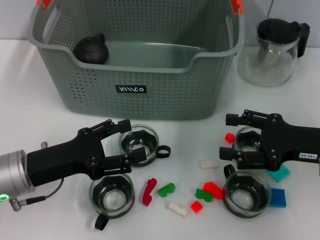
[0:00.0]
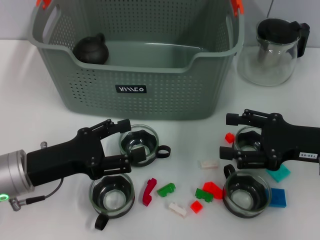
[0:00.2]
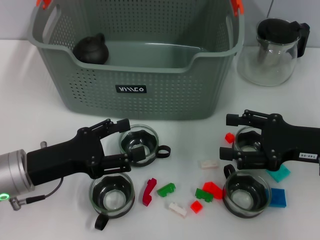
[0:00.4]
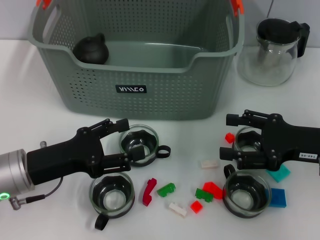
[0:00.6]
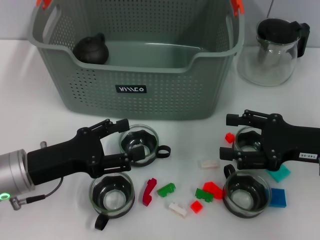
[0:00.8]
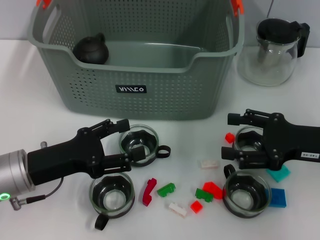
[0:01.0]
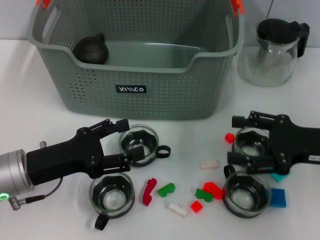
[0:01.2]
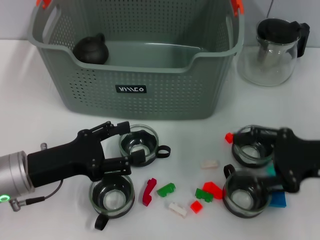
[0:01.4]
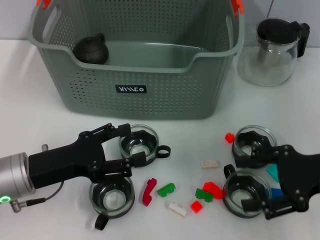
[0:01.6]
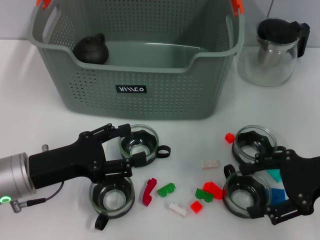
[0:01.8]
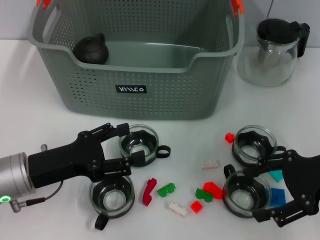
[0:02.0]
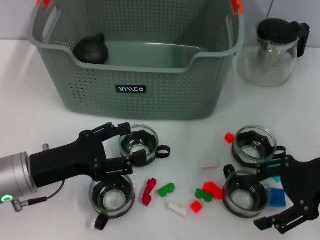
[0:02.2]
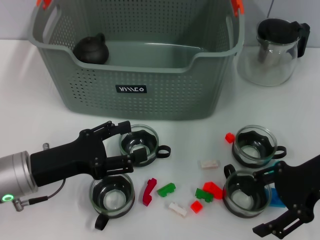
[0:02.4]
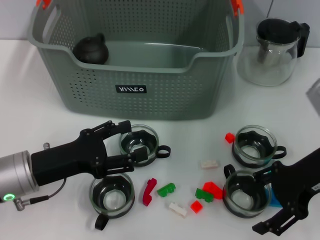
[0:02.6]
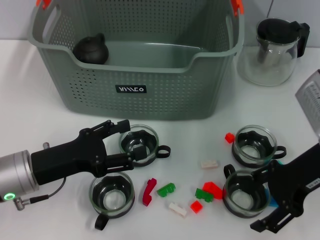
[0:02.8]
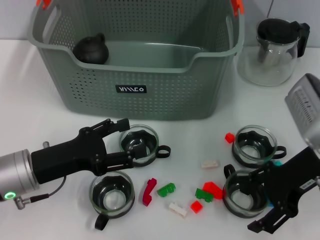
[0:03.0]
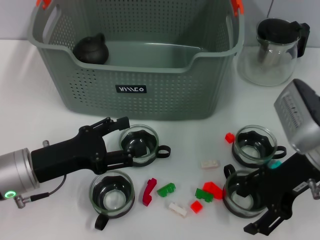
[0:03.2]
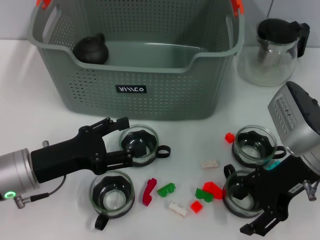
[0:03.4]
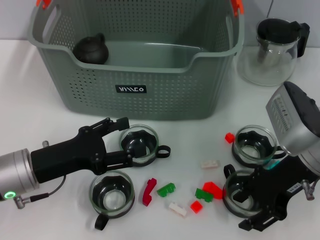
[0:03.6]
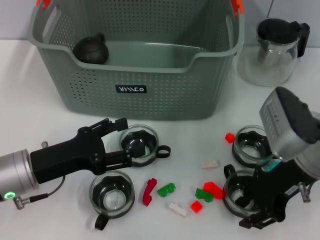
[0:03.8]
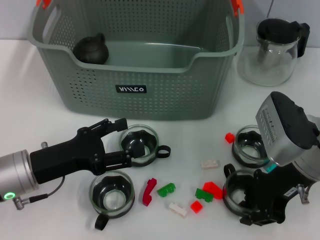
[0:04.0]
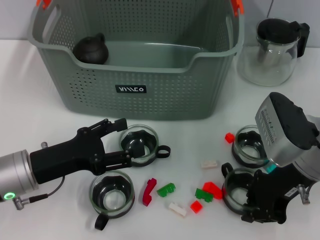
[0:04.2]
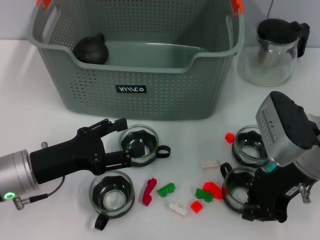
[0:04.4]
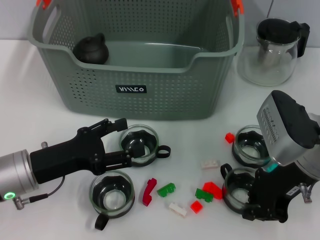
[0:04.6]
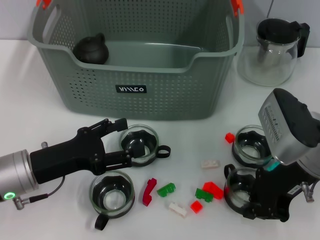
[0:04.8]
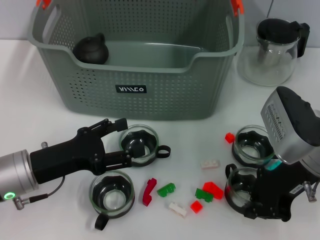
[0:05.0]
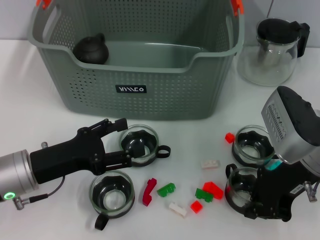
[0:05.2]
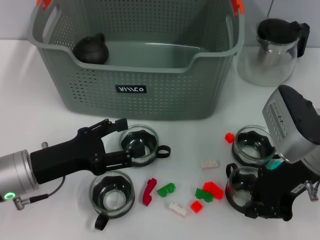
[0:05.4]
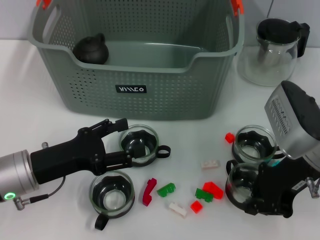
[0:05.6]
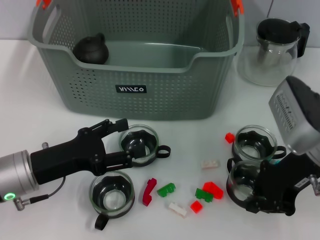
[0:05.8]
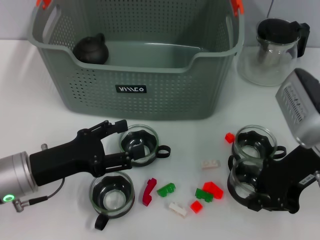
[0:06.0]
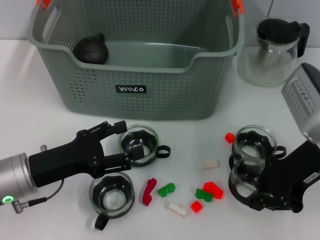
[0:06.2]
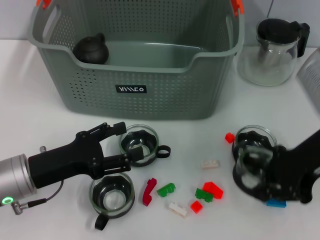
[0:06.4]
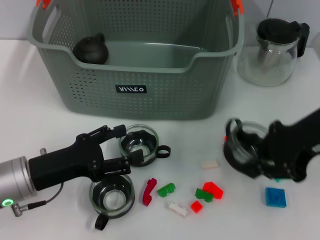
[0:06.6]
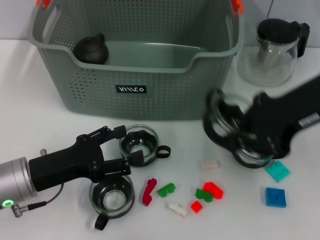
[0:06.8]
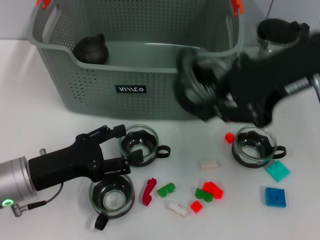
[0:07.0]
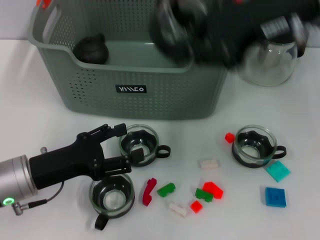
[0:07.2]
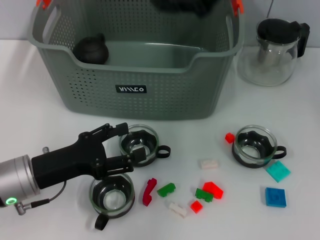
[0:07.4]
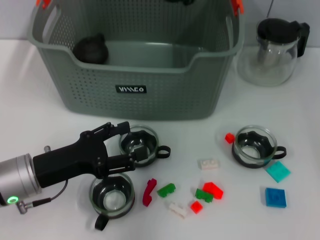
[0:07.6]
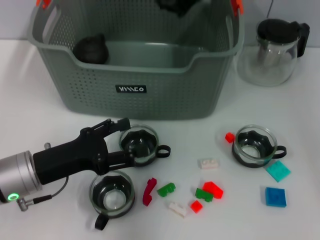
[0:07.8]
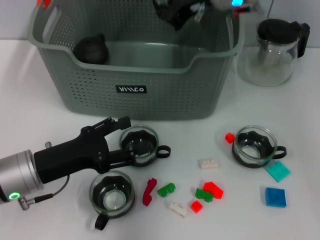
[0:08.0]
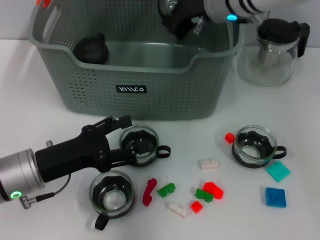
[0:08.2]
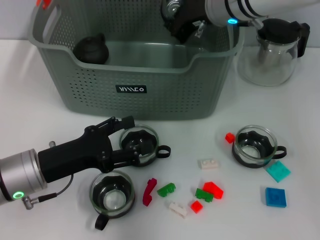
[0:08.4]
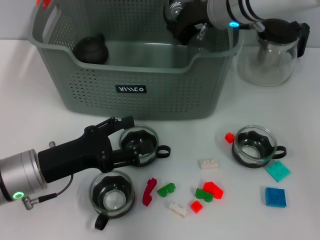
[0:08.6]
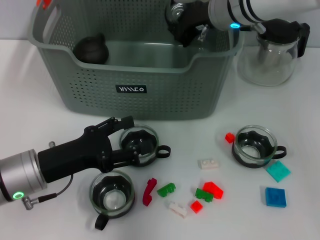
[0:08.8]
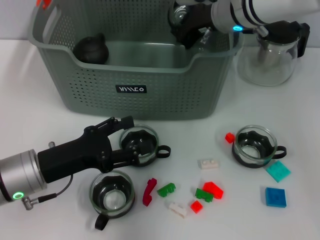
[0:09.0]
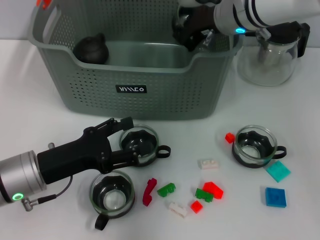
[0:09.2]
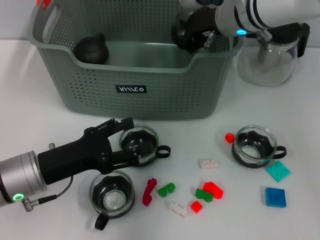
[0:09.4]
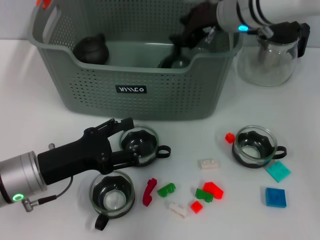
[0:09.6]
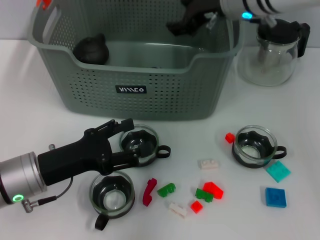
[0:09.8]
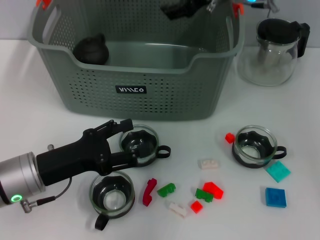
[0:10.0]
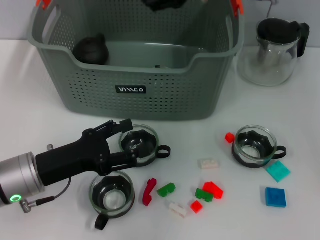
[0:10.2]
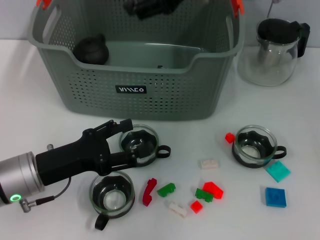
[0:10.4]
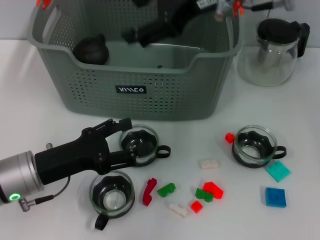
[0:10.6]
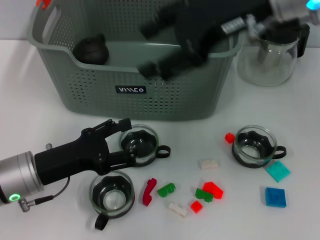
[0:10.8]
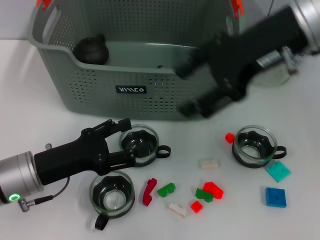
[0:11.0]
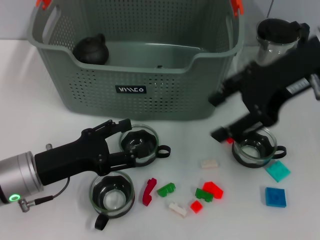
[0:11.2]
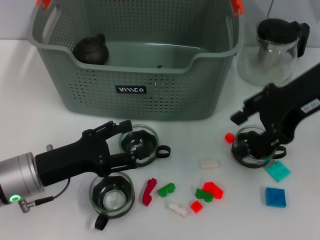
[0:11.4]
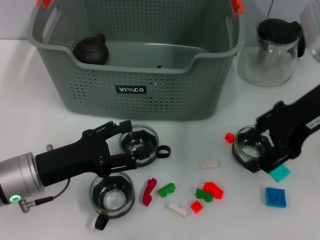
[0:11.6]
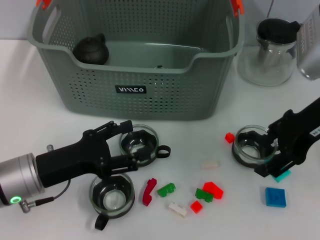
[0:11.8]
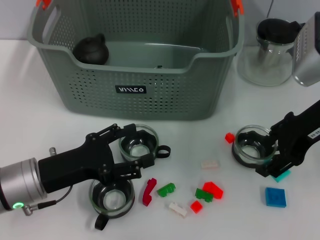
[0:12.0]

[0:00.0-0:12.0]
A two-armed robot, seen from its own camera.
Task of the whole recording: pick up the teacup on the table and place it into the storage bin, pick up the block on the table and place it into the storage bin.
Step, 0.0 to 4.0 s: Grasp the cup with right gripper.
Step, 4.4 to 9.8 s: Place the cup in the storage box with right gripper.
0.0 to 1.6 s: The grippers stay close to where they were, moving slightly.
1.6 to 3.0 s: The right gripper goes roughly 5 cm to the left.
3.0 to 4.4 s: The right gripper closes its fingers.
4.4 to 6.0 s: The grippers stay close to where they were, moving slightly.
6.0 to 7.6 s: The right gripper goes about 20 cm upward, forward and to the left.
7.6 to 9.0 s: The right gripper goes roughly 10 cm downward.
9.0 to 10.4 s: The right gripper shifts approximately 10 cm upward, and opens up.
10.4 to 12.0 s: The right gripper moves to the right, downward and backward, about 15 cm.

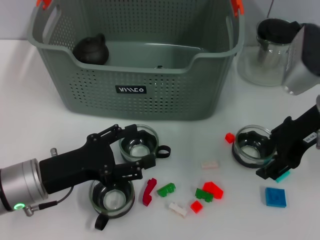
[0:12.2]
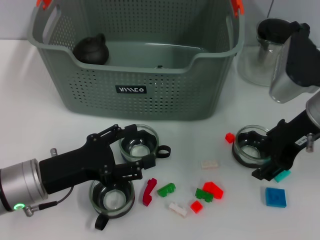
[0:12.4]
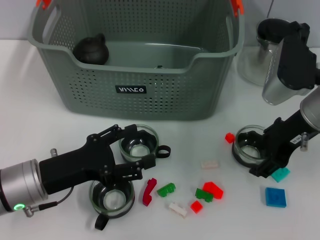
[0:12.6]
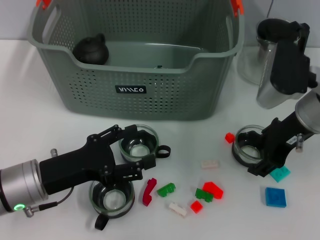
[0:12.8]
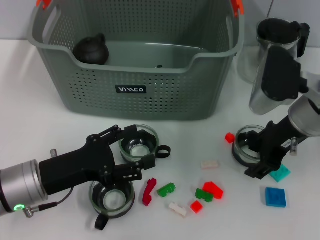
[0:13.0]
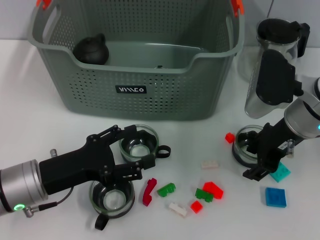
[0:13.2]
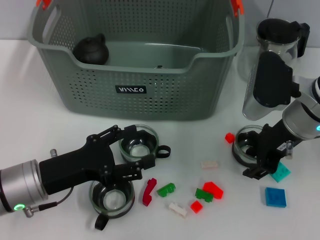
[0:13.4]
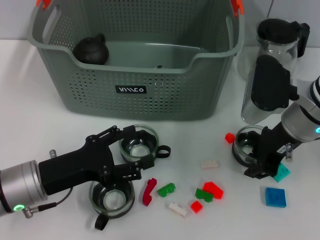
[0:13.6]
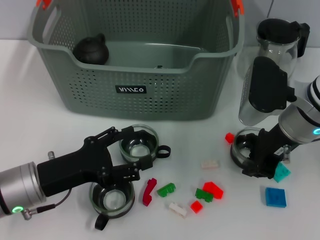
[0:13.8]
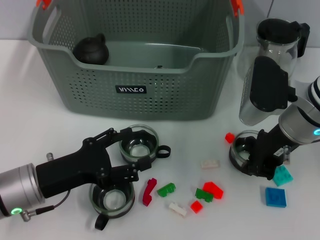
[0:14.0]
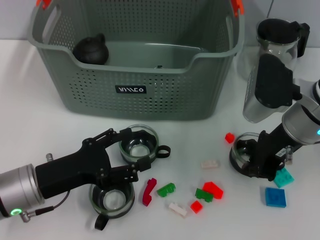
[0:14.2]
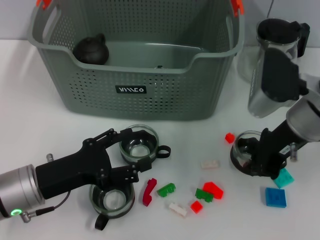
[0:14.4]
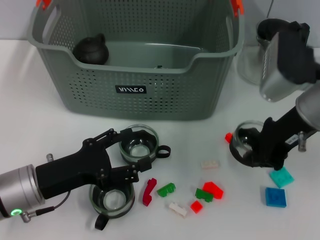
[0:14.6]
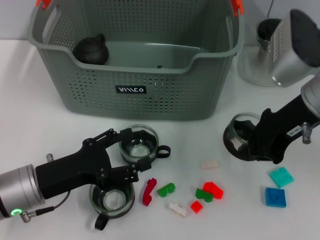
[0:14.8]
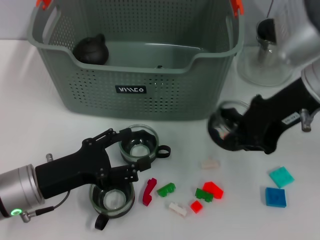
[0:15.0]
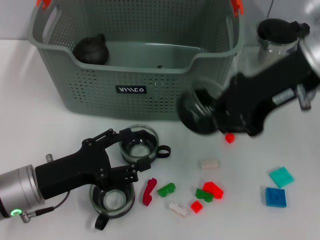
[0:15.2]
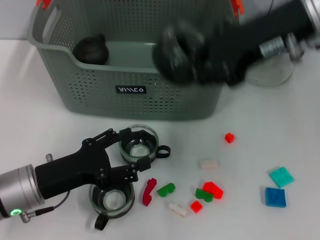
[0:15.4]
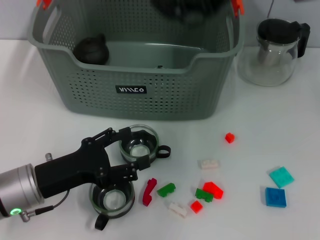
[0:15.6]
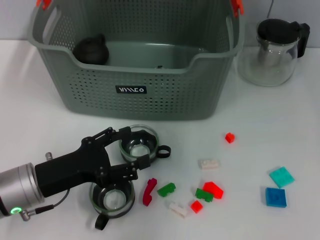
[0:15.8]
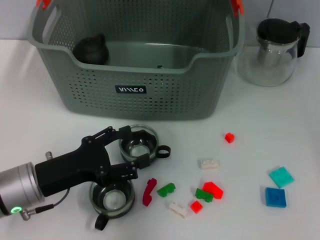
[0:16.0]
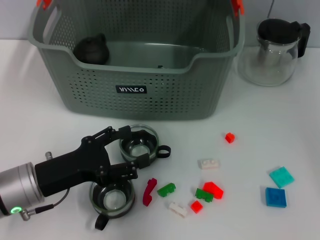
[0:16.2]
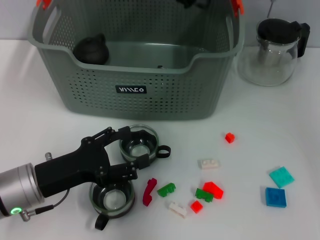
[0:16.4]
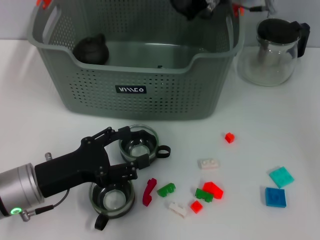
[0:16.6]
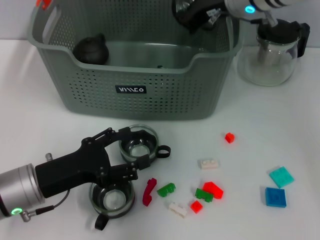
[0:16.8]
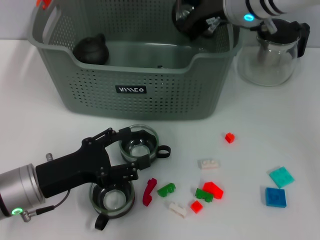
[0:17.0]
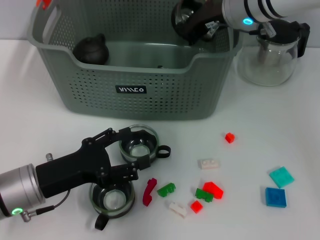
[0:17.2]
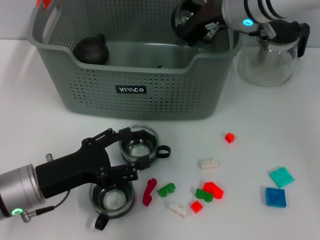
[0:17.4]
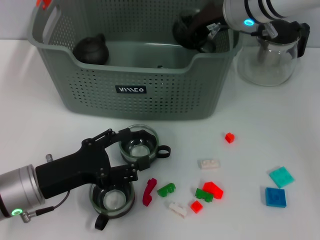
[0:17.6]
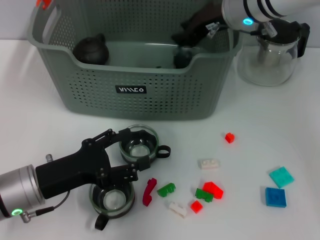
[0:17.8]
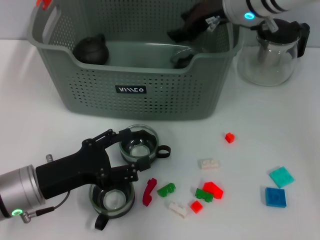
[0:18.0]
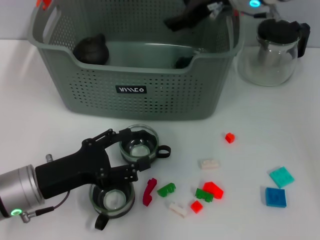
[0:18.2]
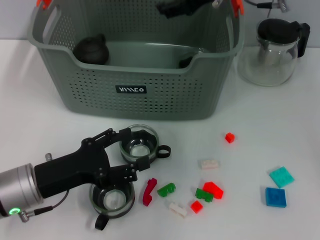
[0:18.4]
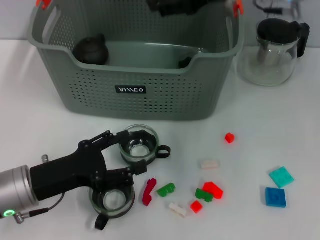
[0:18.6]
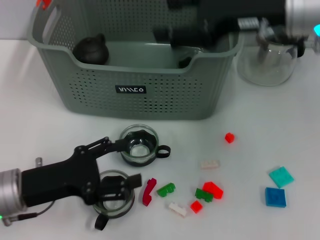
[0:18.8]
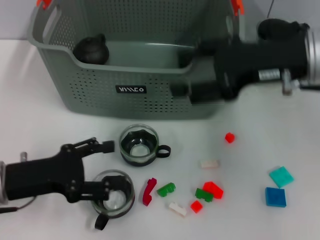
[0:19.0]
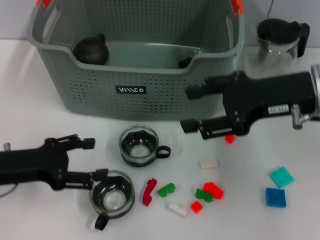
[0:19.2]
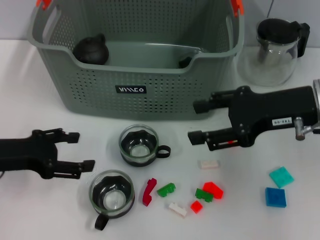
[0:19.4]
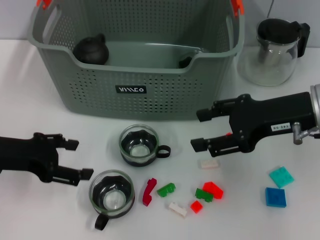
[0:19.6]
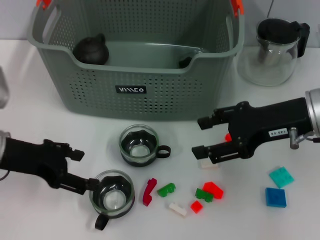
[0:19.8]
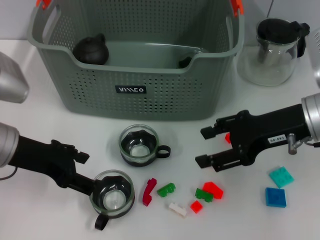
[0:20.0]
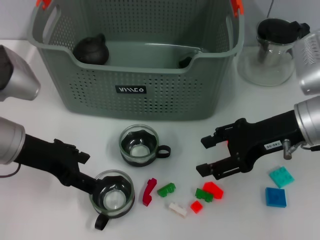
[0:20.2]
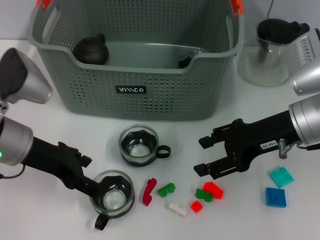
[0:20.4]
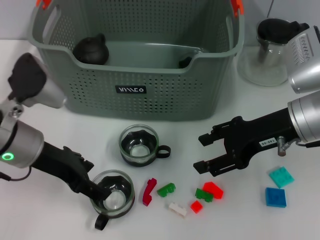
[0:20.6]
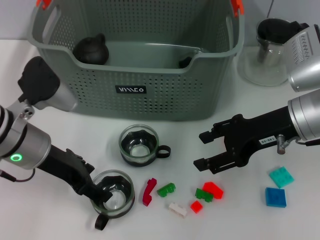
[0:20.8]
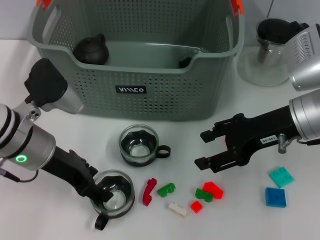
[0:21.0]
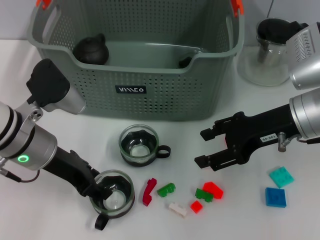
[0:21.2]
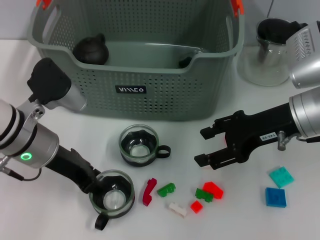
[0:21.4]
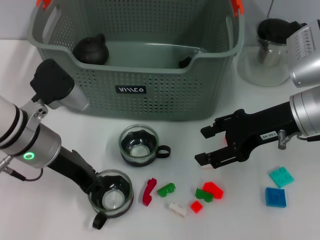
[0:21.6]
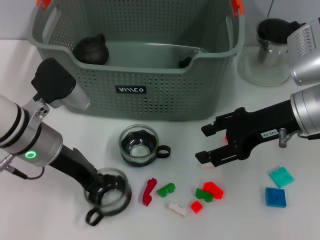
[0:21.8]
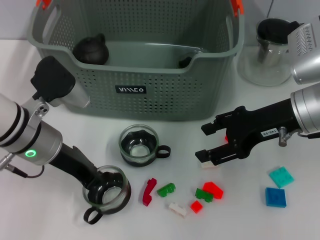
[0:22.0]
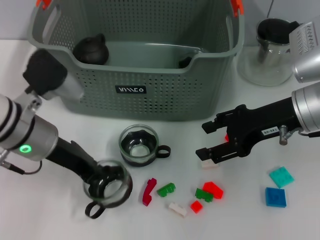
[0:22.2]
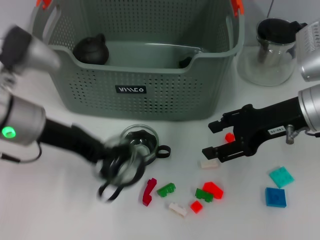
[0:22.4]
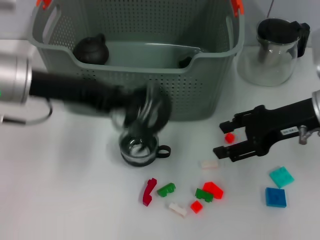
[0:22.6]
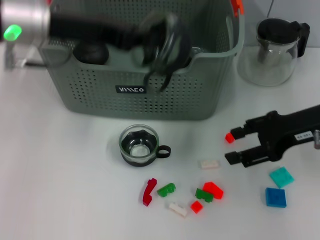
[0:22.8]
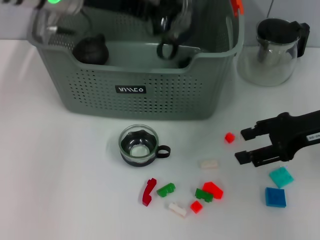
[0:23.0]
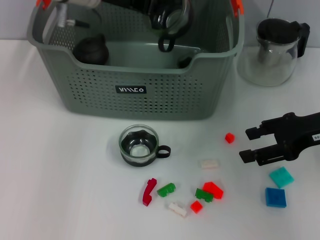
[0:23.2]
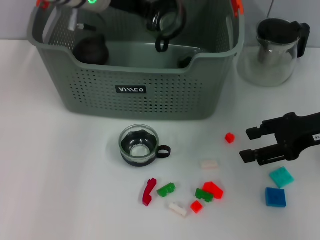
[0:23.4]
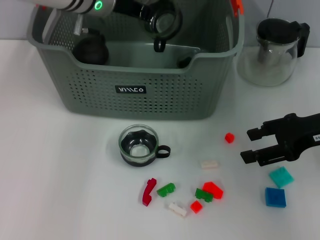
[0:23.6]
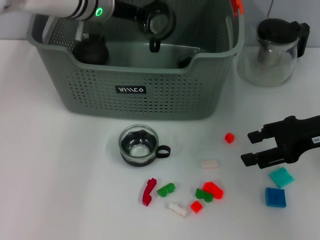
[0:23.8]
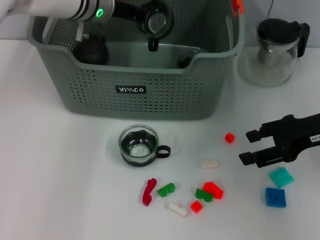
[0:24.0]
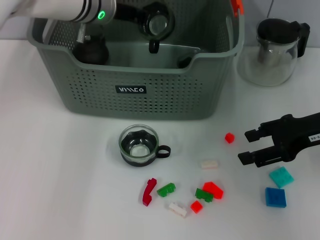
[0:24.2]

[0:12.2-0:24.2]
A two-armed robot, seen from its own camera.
Task of the whole recording: pick up the teacup on the table and place it into the storage bin, pick up the block on the table and place it into the storage bin.
Step, 14.2 to 18.0 s: Place the cup in the storage box with right gripper.
Step, 18.2 to 21.8 s: Grasp the cup with left gripper.
12.2 to 13.8 s: The right gripper changes place by approximately 5 cm, and closes up.
13.8 to 15.2 s: The right gripper shifts approximately 15 cm upward, and closes.
15.2 to 16.6 s: The right gripper moves forward, roughly 15 cm.
16.6 to 18.2 s: The right gripper opens up.
18.2 to 19.8 s: The right gripper shifts some 20 cm backward, to the right and downward. The left gripper travels upward by about 10 cm.
19.8 to 21.2 s: The left gripper goes roughly 5 cm to the right.
21.2 to 22.6 s: The left gripper is displaced upward by about 10 cm, and closes.
22.6 to 24.2 s: The left gripper goes roughly 20 cm forward and to the right.
